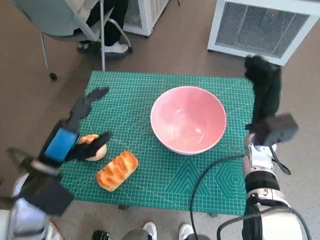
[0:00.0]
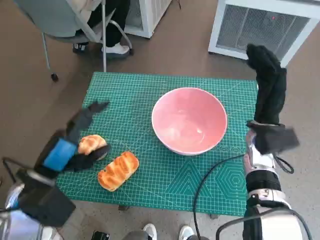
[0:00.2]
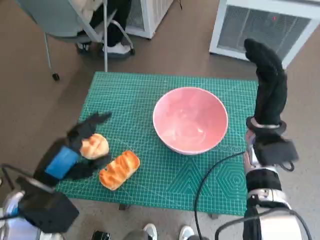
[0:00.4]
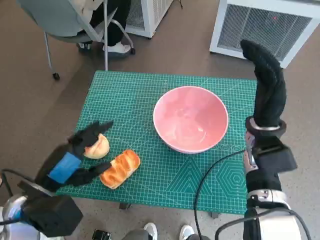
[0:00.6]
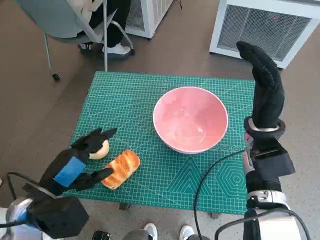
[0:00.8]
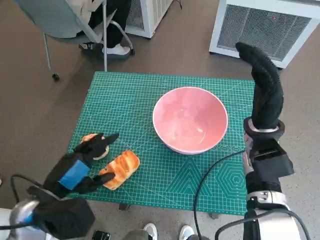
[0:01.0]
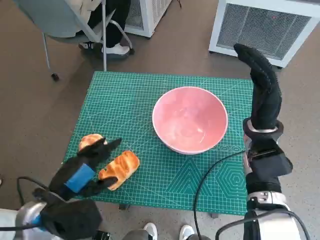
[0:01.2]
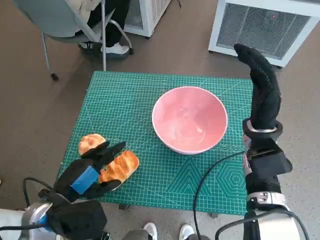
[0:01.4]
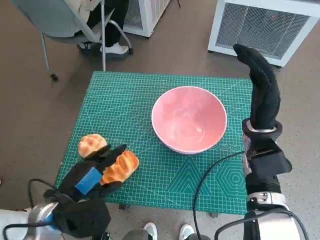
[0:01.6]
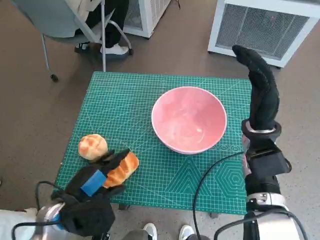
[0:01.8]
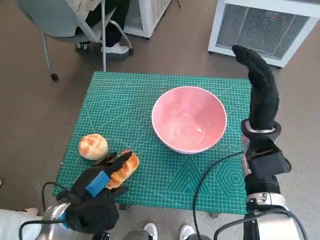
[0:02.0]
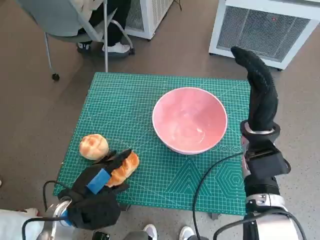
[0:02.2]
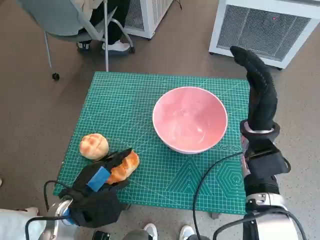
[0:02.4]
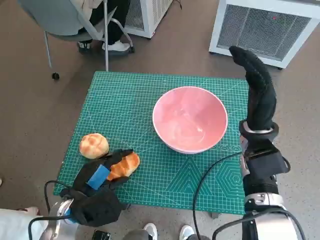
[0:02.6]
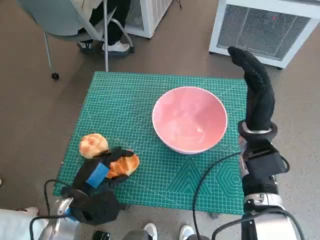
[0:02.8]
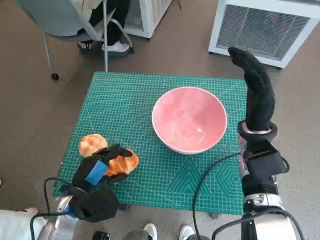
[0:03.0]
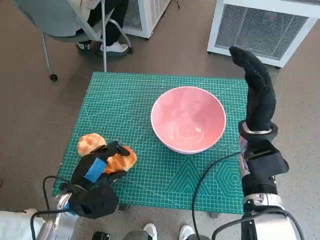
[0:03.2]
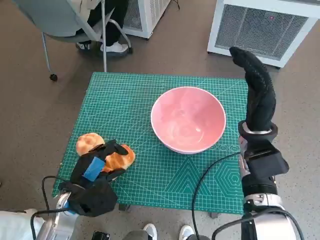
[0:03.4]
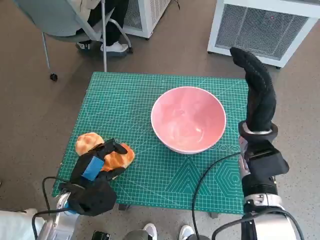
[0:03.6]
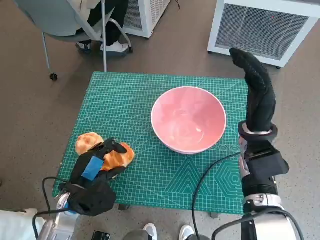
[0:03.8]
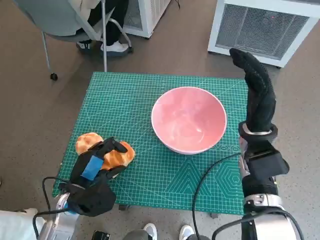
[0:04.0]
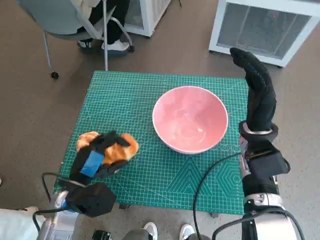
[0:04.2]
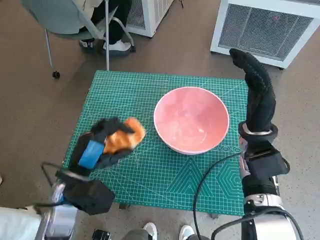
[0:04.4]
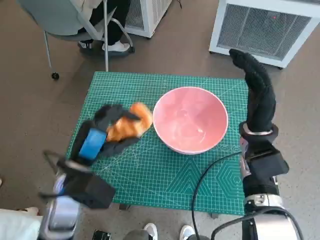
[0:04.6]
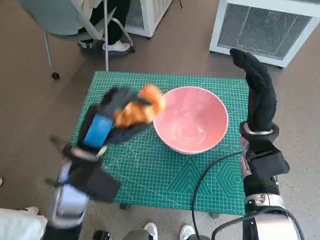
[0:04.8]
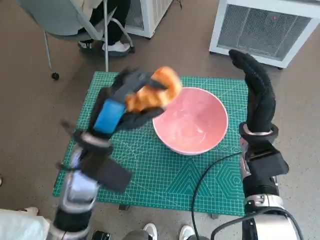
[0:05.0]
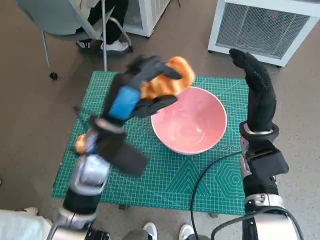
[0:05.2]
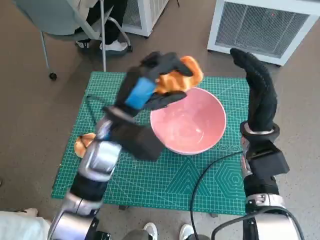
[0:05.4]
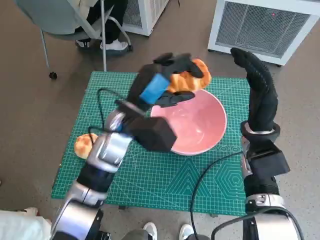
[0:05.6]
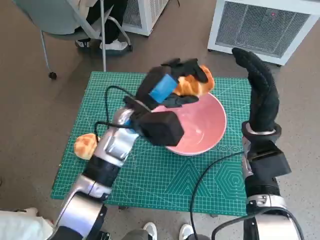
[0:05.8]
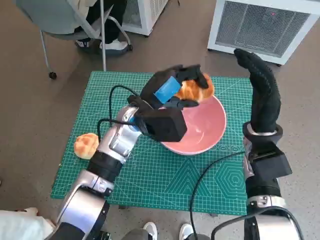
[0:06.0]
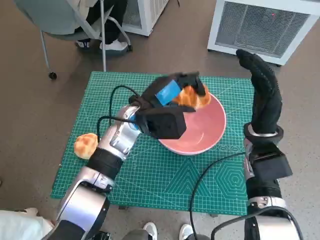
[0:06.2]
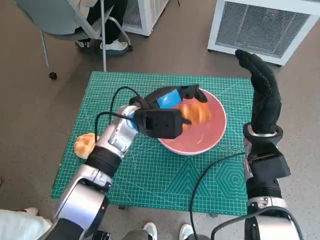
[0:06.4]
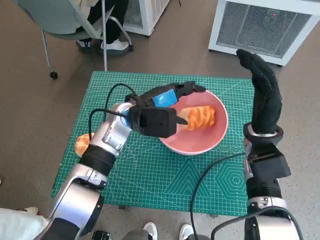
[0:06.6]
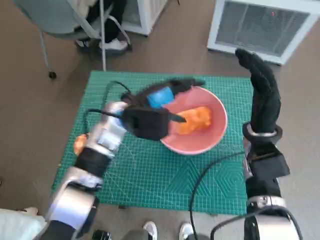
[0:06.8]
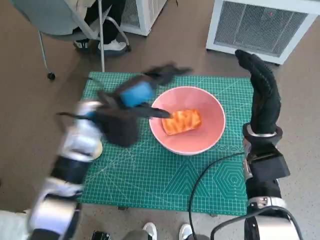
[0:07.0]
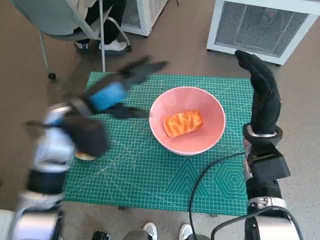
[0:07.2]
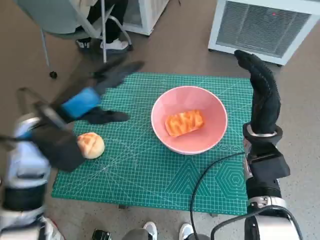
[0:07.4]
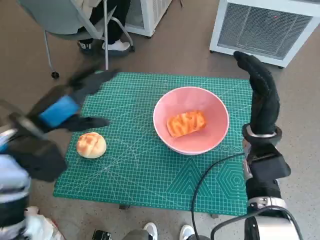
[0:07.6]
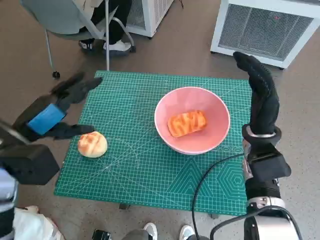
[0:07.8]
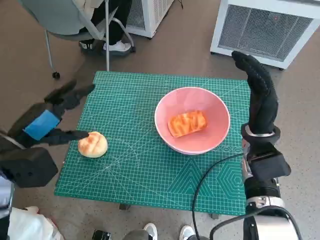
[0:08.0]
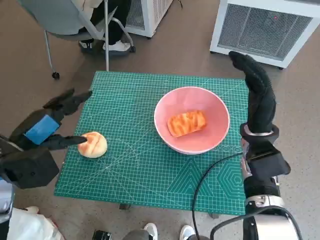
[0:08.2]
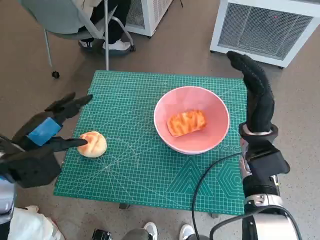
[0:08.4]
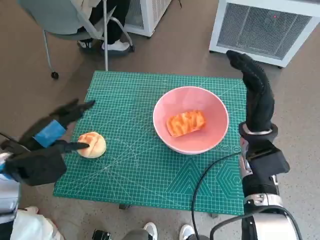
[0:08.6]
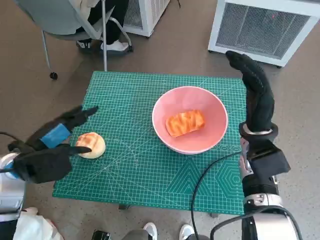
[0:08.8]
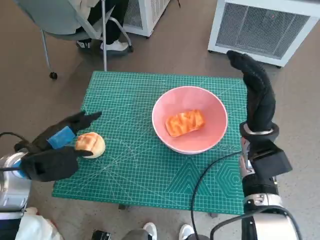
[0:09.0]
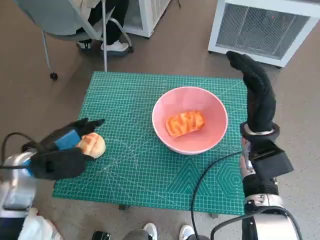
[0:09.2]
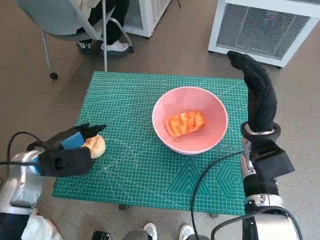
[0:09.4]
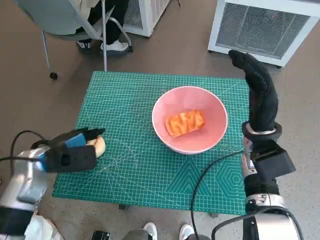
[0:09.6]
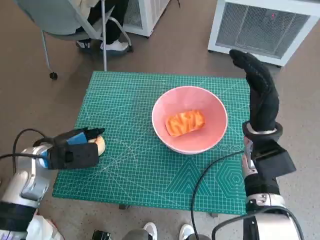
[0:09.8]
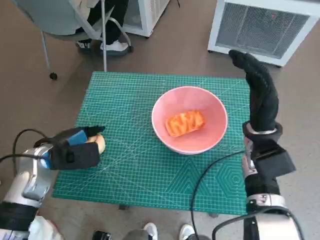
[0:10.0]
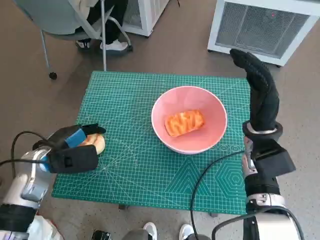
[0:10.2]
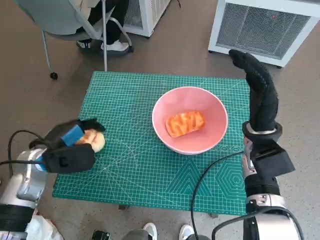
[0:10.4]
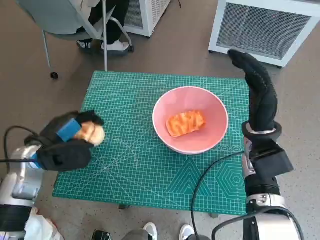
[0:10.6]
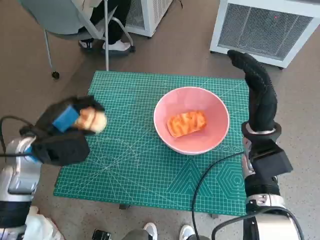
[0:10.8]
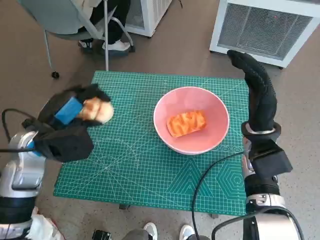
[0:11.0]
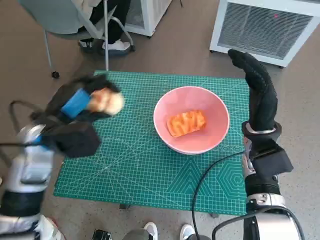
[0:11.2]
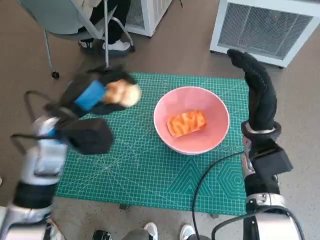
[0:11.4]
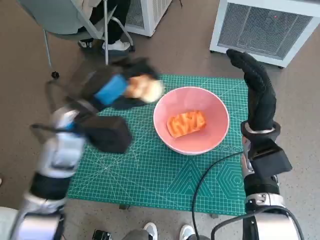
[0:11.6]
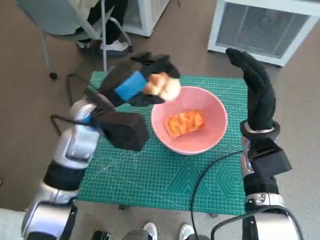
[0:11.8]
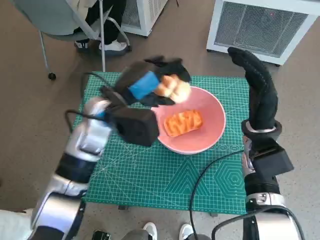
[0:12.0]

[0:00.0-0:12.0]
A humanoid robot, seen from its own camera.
Task of the whole recording: Push the bowl to the center of the table and put the bread into the bowl.
Step, 0:00.4 to 0:02.6: Grasp the long bread with left hand.
Step, 0:02.8 to 0:07.0: Place the long bread in pink bowl with left hand.
Step, 0:07.2 to 0:10.0: Grasp the round bread with left hand.
0:00.0 to 0:01.6: The left hand shifts by roughly 5 cm.
0:01.6 to 0:03.0: The left hand shifts by some 5 cm.
0:03.0 to 0:04.4: The hands move only a little.
0:04.4 to 0:06.0: The left hand is displaced forward, to the right and upward by some 20 cm.
0:06.0 to 0:07.6: The left hand moves to the left and backward, roughly 20 cm.
0:07.6 to 0:09.0: The left hand moves downward, some 5 cm.
0:10.4 to 0:12.0: The left hand shifts about 20 cm to the right, upward and forward.

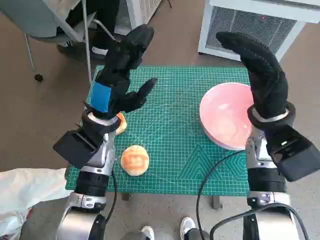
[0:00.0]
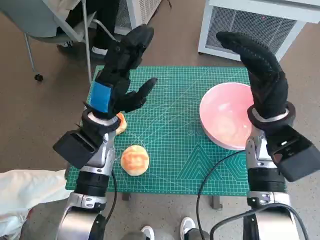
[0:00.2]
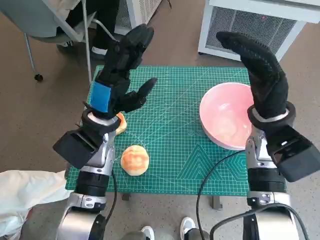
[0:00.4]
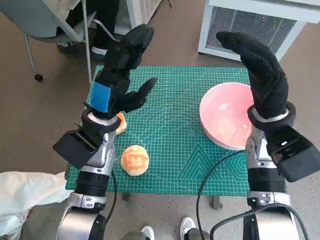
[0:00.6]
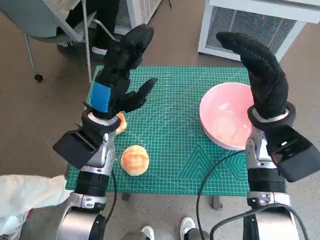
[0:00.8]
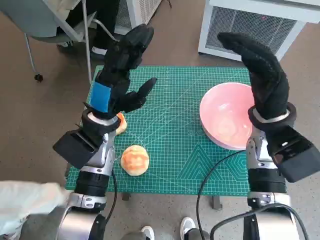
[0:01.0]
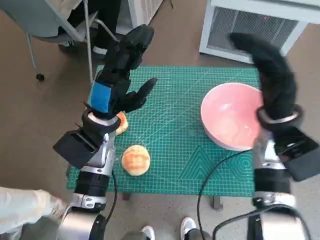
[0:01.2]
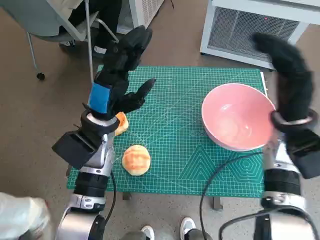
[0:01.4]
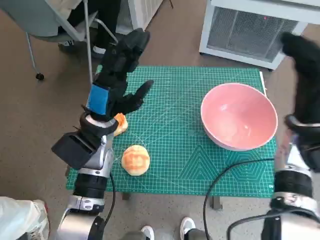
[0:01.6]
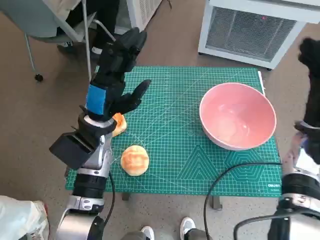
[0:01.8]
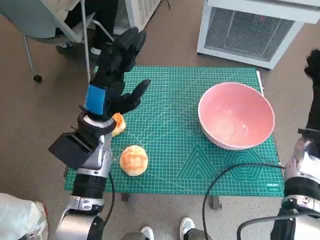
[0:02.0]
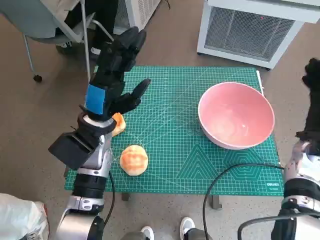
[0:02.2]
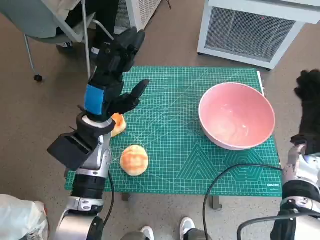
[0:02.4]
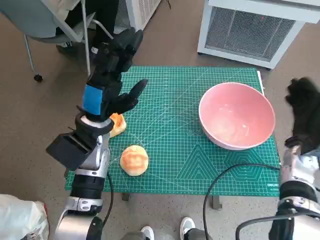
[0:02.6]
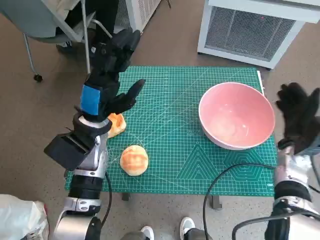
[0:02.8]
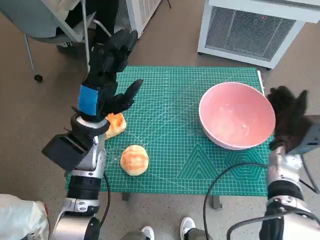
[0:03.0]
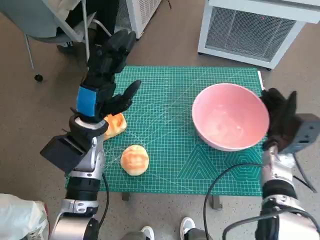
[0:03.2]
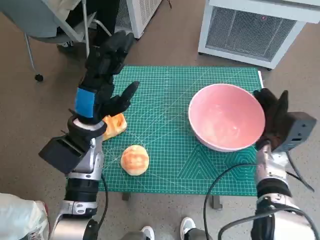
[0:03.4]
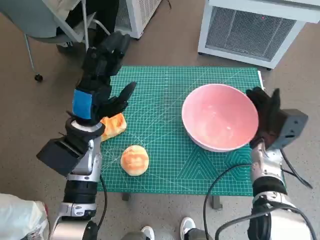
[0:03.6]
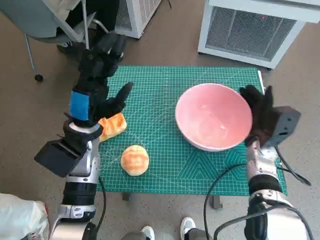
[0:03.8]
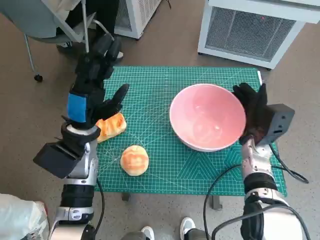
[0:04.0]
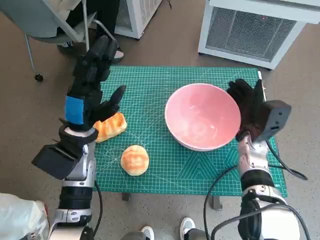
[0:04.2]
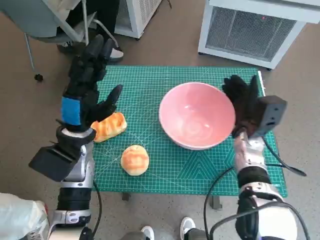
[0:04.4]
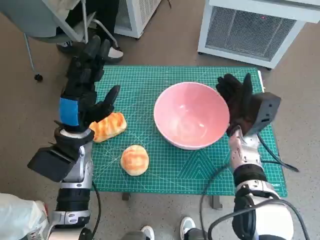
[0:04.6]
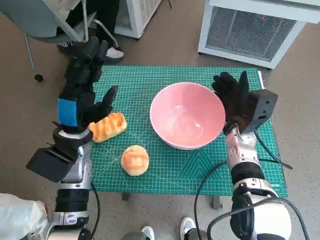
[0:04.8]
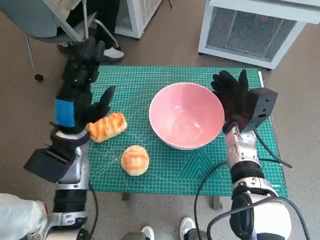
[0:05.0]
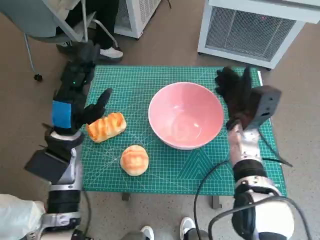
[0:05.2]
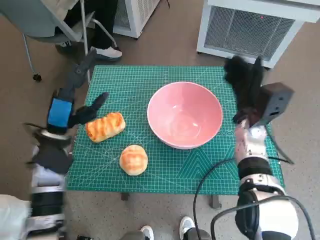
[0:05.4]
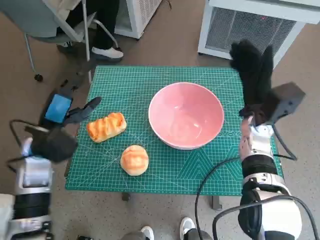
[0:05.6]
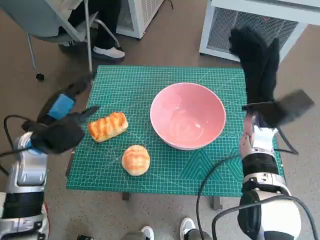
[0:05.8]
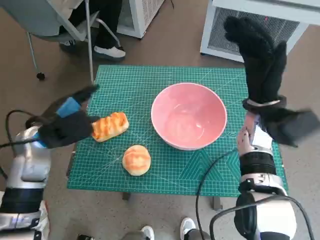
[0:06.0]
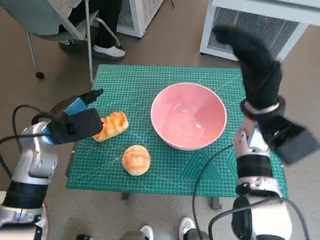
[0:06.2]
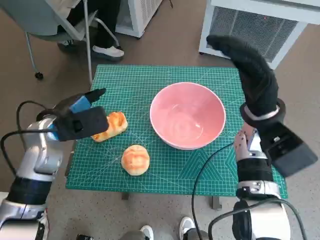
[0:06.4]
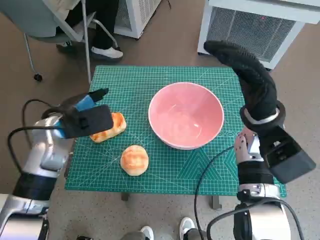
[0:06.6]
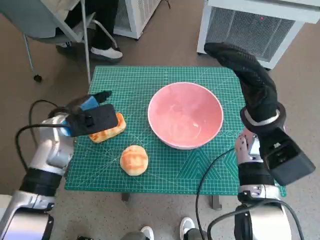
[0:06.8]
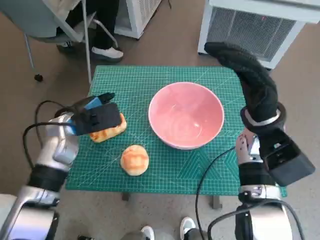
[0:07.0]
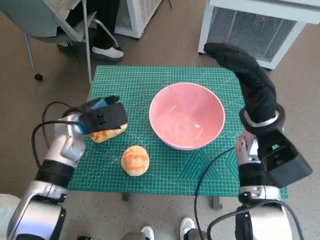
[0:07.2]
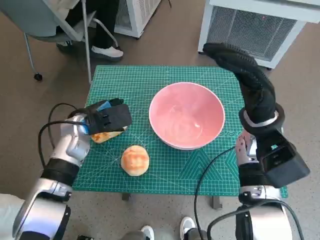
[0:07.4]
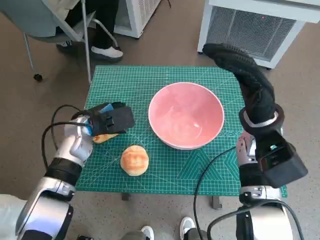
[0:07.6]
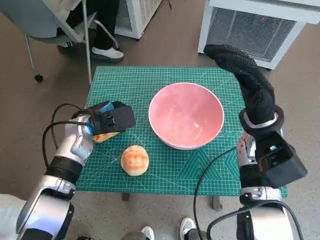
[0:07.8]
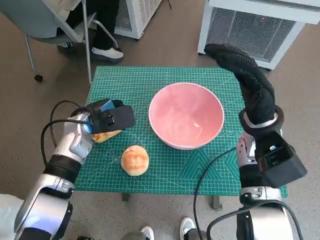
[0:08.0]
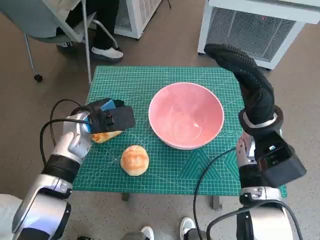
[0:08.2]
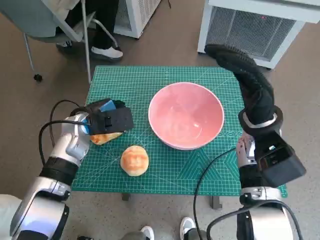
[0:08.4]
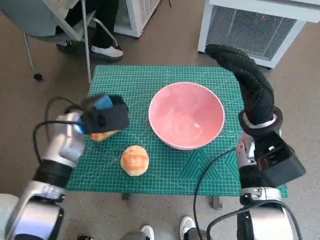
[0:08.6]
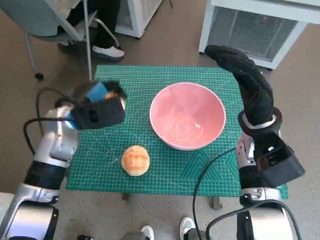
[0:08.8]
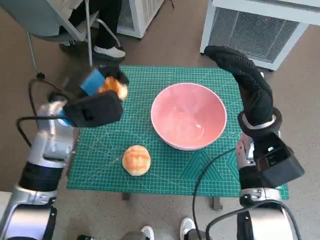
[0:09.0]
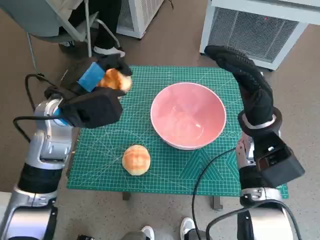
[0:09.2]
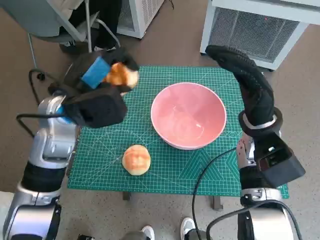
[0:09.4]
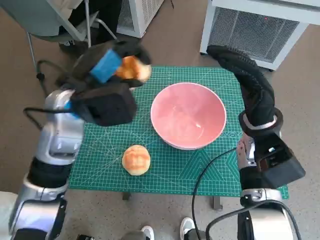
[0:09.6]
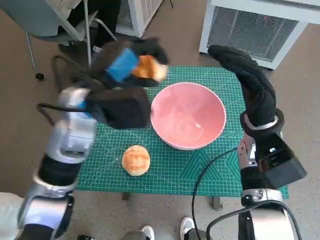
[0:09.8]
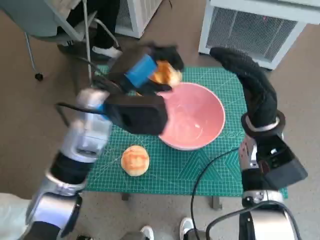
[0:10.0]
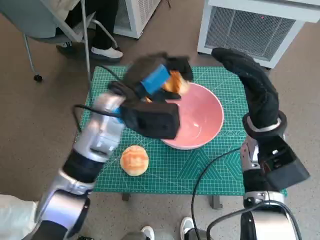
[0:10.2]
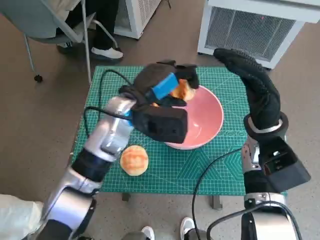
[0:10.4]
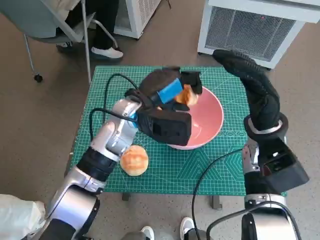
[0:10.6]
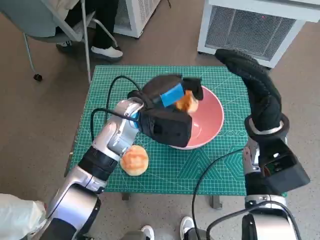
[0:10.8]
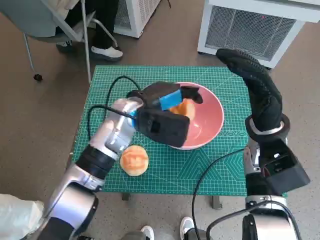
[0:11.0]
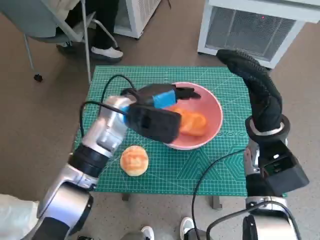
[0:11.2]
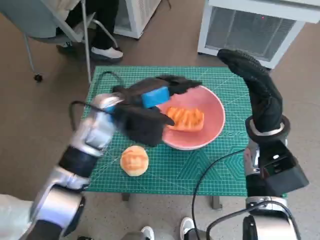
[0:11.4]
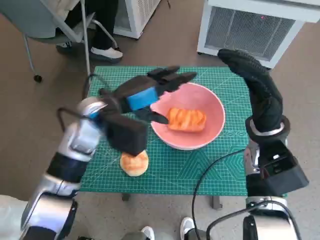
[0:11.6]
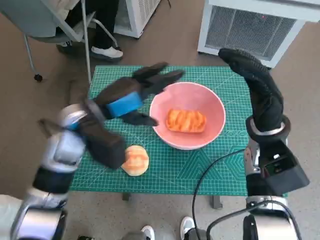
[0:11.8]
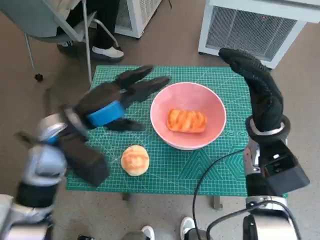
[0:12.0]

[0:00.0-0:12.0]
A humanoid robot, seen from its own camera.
Task of the whole recording: Push the bowl to the center of the table and put the bread into the bowl.
Step, 0:00.0 to 0:05.2: Move the pink bowl to the center of table with right hand.
Step, 0:05.4 to 0:08.4: Grasp the long bread with left hand.
Step, 0:08.6 to 0:11.2: Place the long bread in pink bowl with left hand.
0:01.6 to 0:03.0: The right hand is displaced downward by about 10 cm.
0:03.0 to 0:04.4: The right hand heads to the left, covering approximately 10 cm.
0:04.4 to 0:06.0: The left hand travels to the left by approximately 5 cm. The right hand travels upward by roughly 10 cm.
0:06.0 to 0:07.6: The left hand shifts roughly 10 cm to the right and forward.
0:07.6 to 0:09.0: The left hand moves upward, approximately 10 cm.
0:09.0 to 0:10.4: The left hand is displaced to the right by about 10 cm.
0:10.4 to 0:12.0: The left hand shifts approximately 10 cm to the left and backward.
